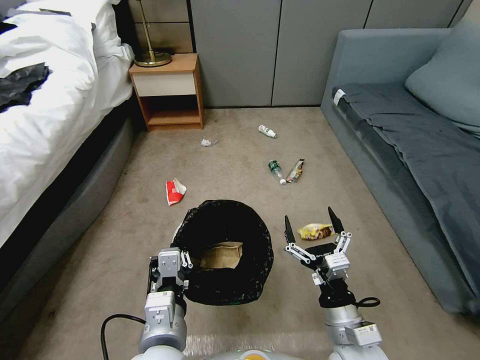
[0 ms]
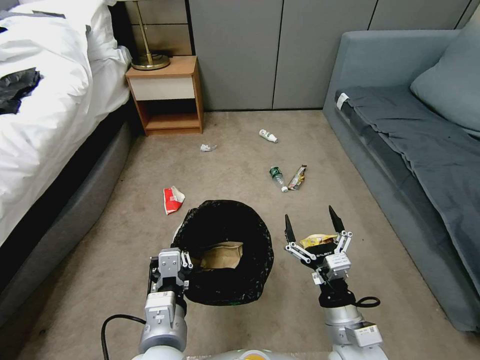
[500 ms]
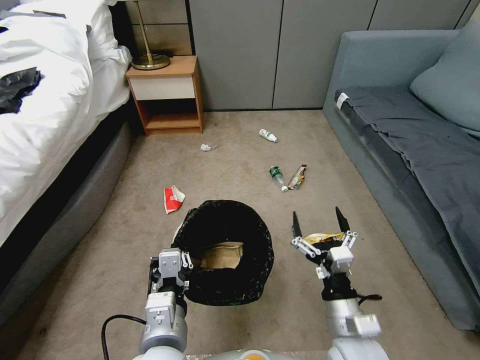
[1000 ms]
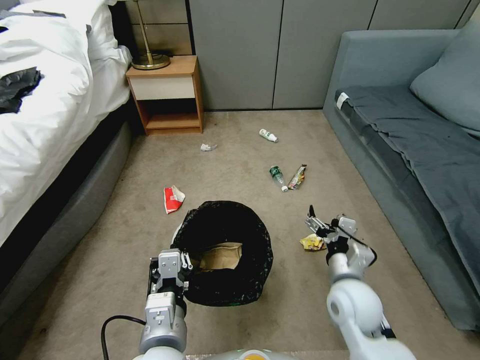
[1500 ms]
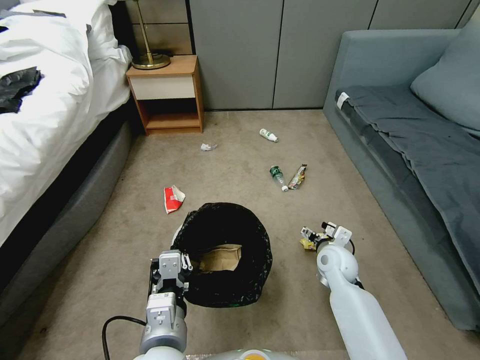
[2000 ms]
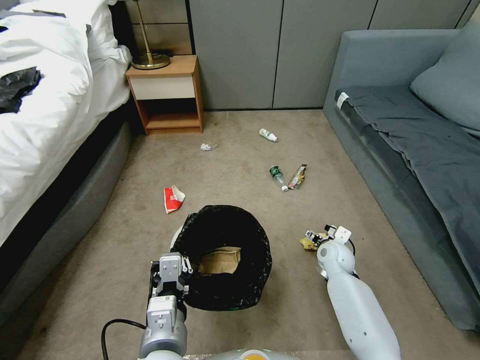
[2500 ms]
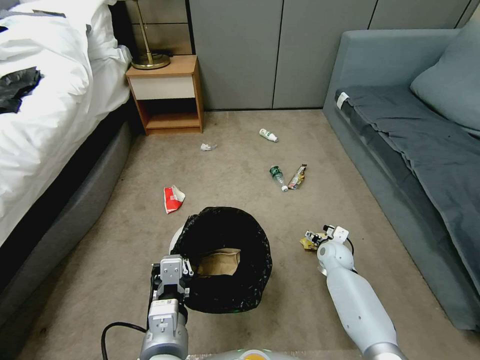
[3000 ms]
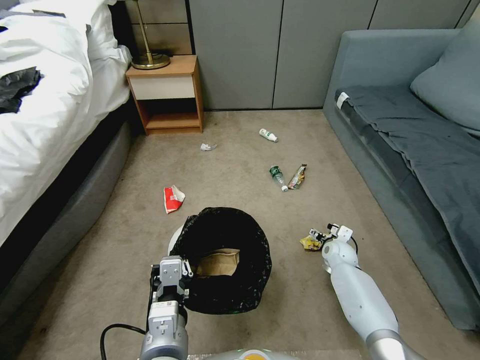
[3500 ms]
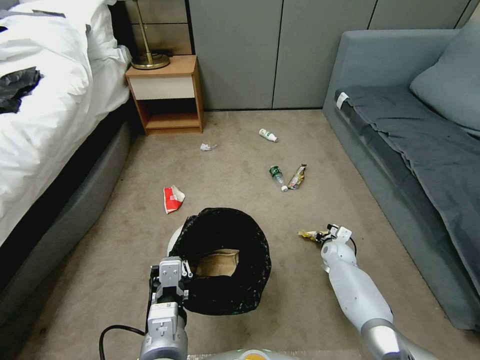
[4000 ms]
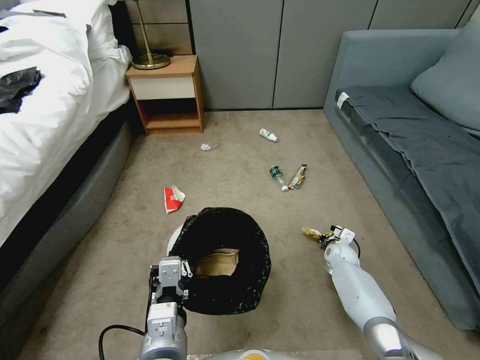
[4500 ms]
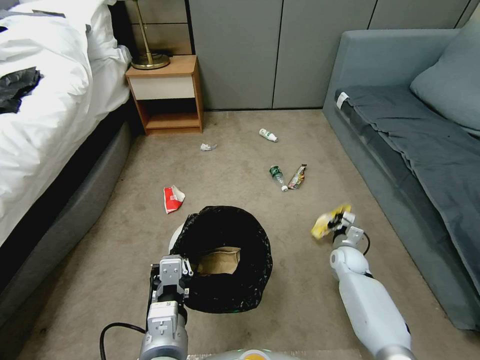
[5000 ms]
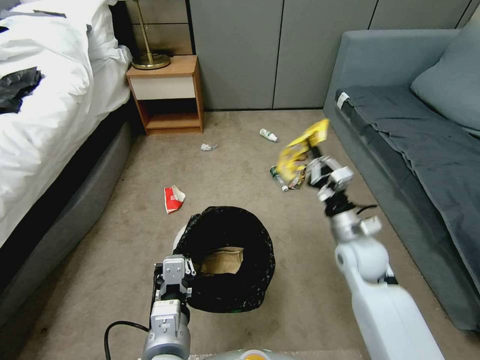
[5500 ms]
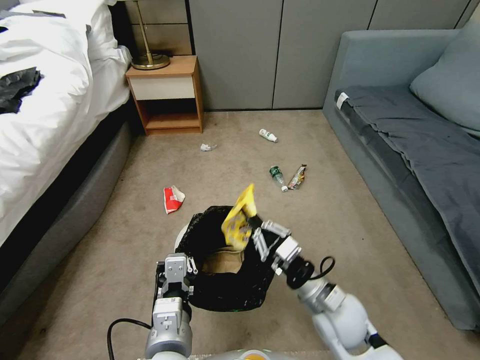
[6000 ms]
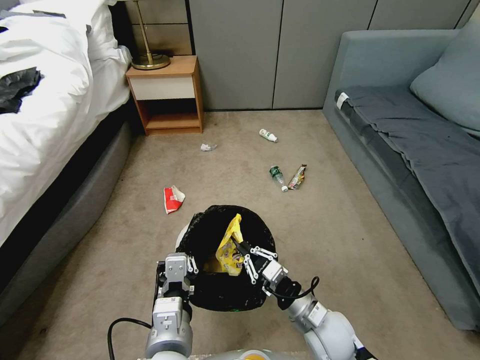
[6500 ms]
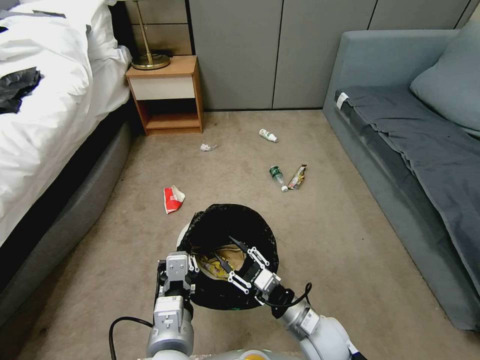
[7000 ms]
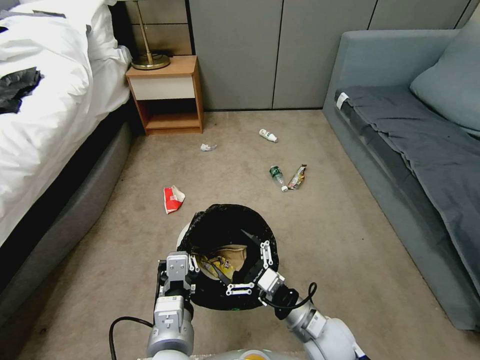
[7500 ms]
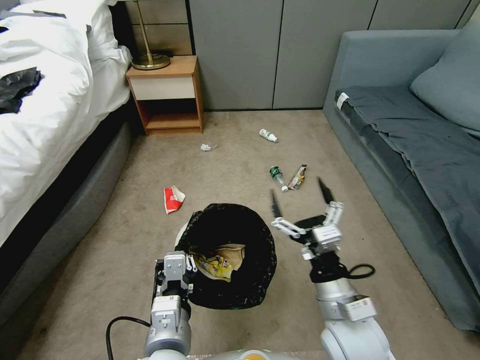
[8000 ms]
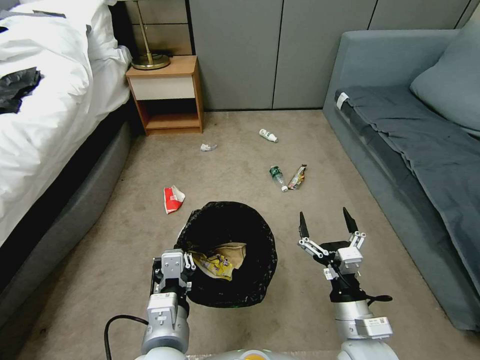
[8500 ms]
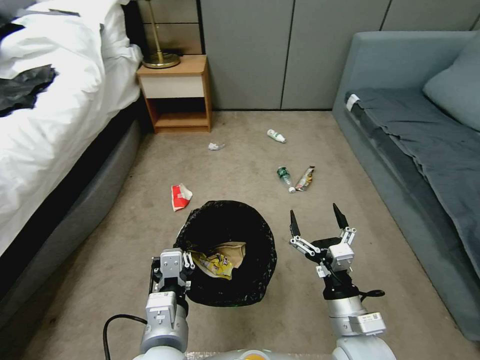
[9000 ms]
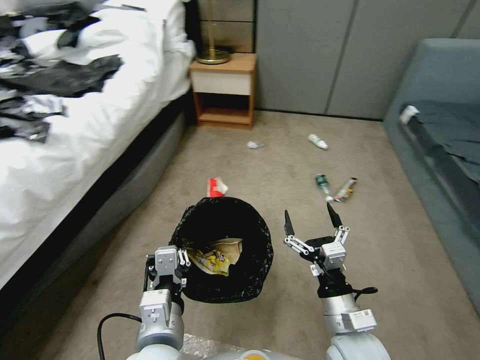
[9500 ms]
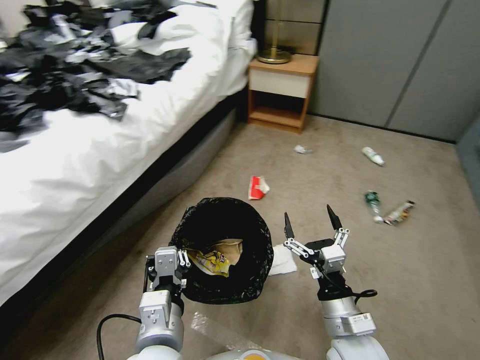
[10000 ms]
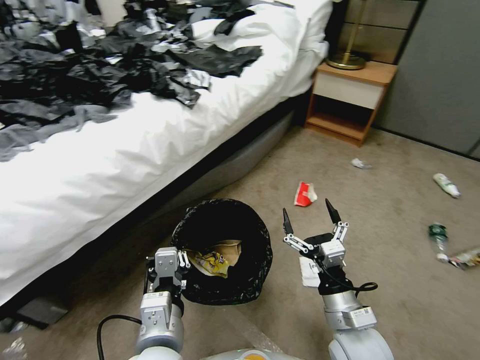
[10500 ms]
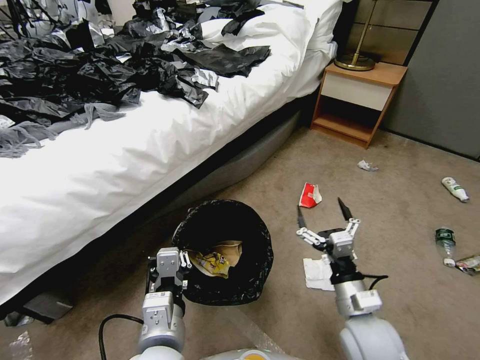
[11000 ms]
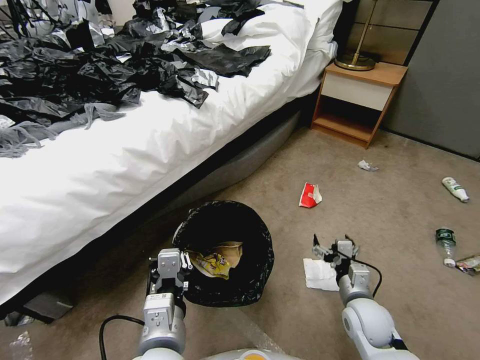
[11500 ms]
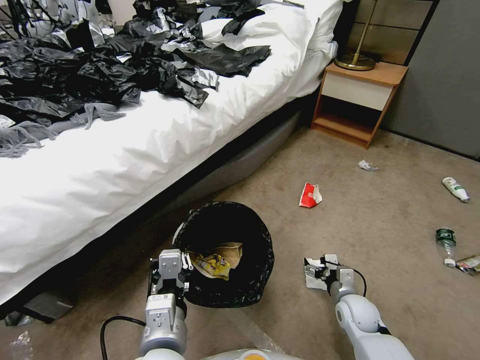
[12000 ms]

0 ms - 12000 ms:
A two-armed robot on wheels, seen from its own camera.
Task of the whole recording: Pick up the trash bin, then pick up the garbage from the floor and place it into the trash bin.
0 ms - 2000 ms: The right gripper shifts about 20 cm forward.
2000 ms - 4000 ms: The right gripper is displaced downward, forward and to the right by roughly 15 cm, and closes up.
4000 ms - 6000 ms: The right gripper heads backward, upward and to the left, covering roughly 30 cm, and closes up.
6000 ms - 8000 ms: The right gripper travels upward by approximately 5 cm, and opens its fingers.
8000 ms - 10000 ms: The right gripper travels downward by about 5 cm.
10000 ms - 12000 ms: The right gripper shifts about 20 cm downward, forward and to the right.

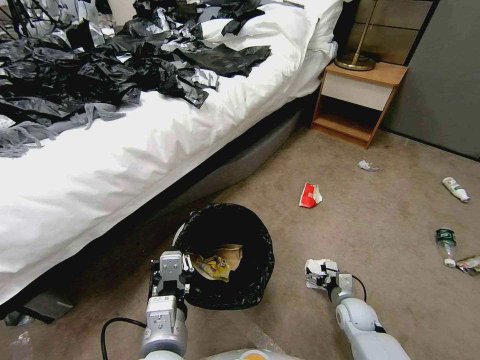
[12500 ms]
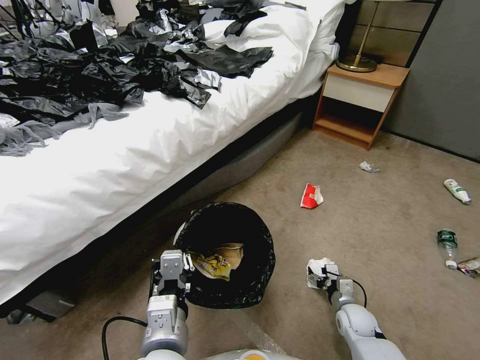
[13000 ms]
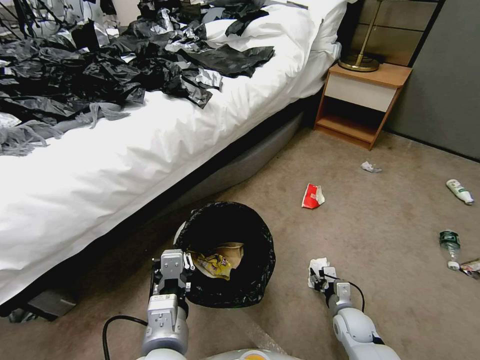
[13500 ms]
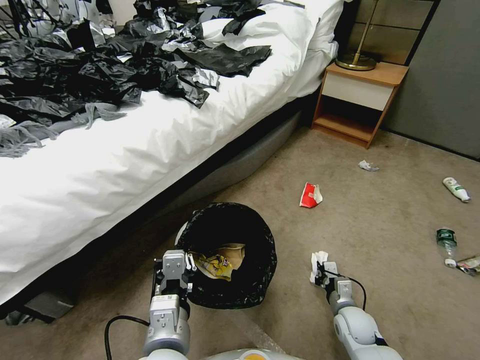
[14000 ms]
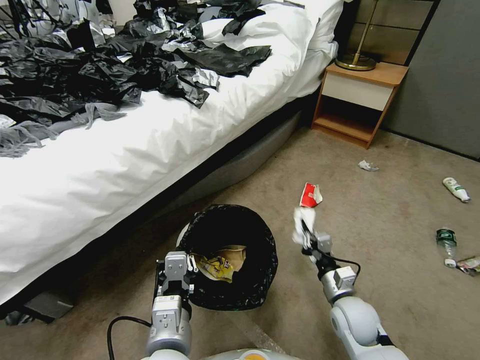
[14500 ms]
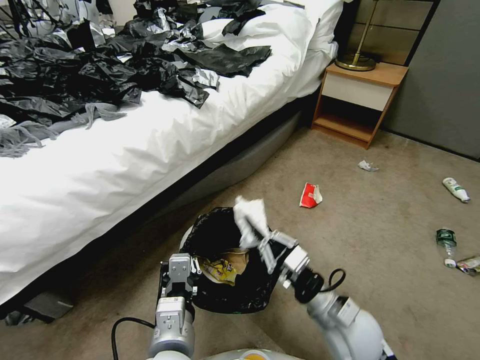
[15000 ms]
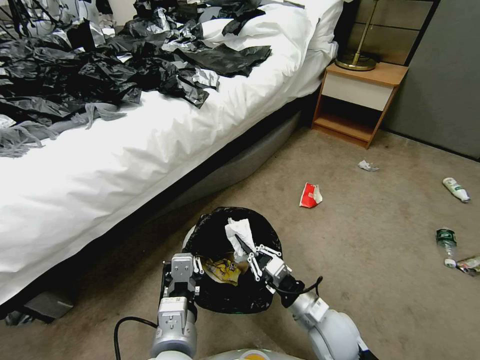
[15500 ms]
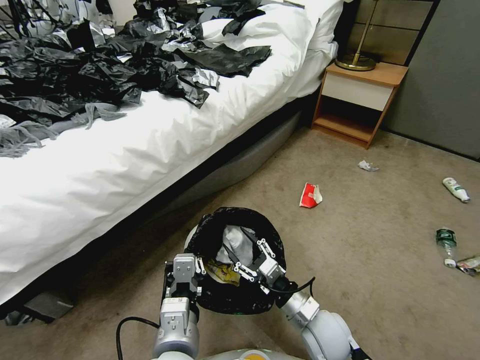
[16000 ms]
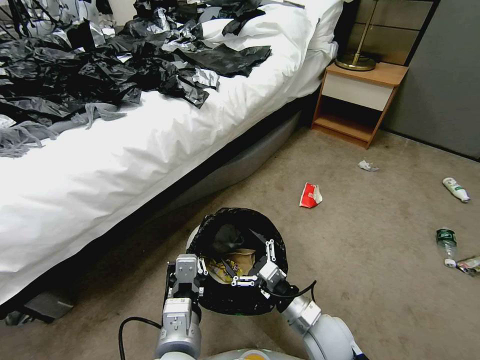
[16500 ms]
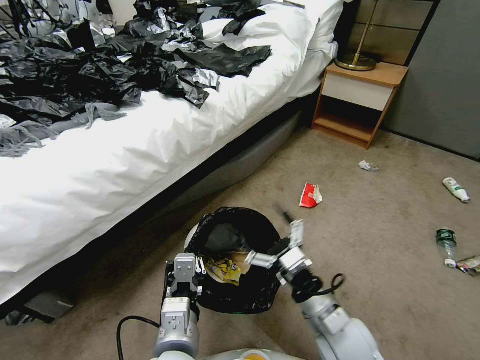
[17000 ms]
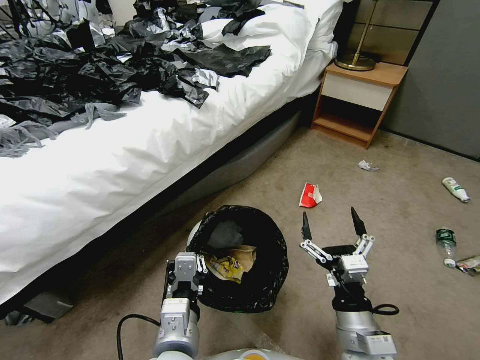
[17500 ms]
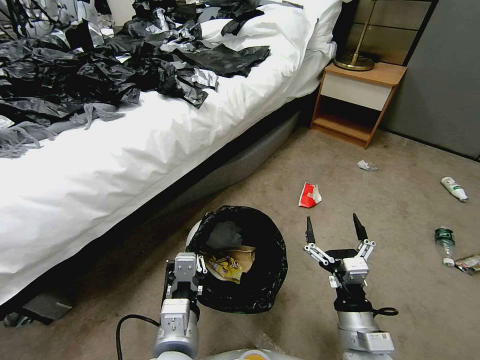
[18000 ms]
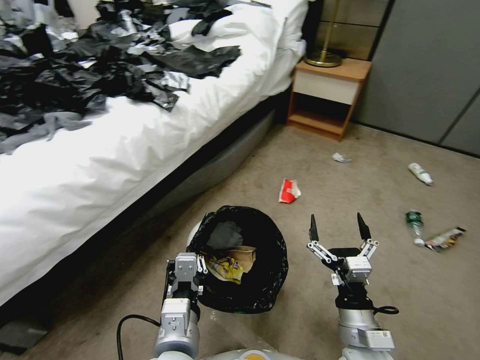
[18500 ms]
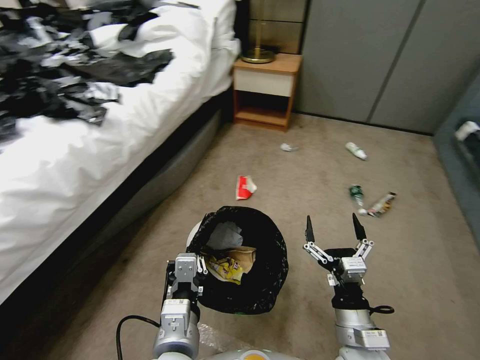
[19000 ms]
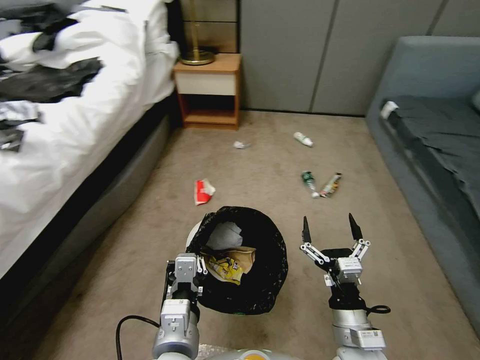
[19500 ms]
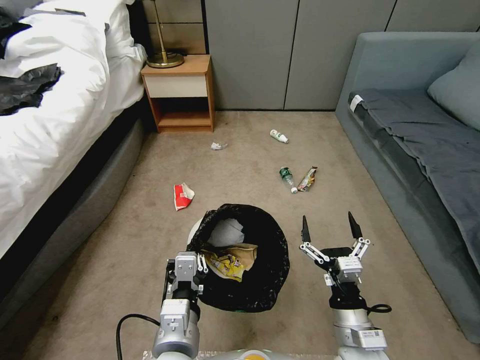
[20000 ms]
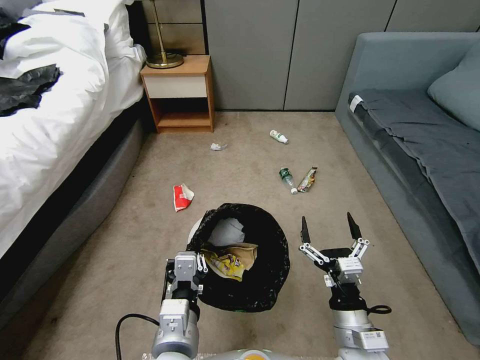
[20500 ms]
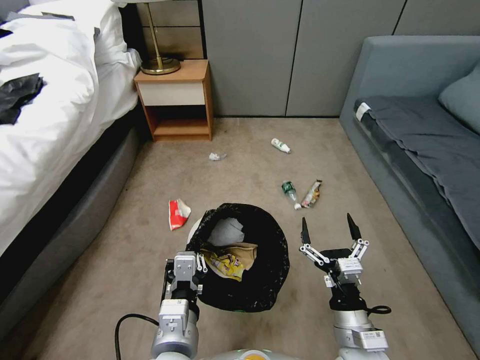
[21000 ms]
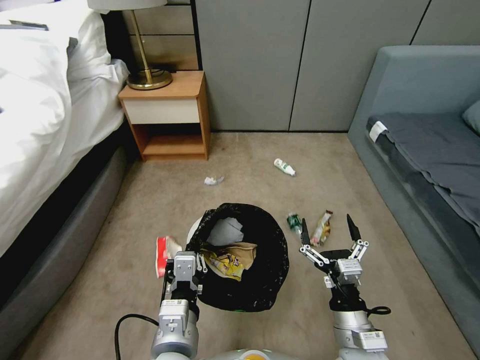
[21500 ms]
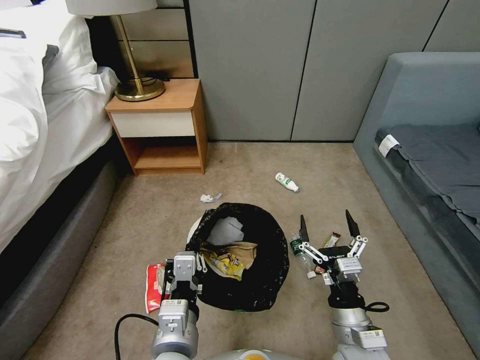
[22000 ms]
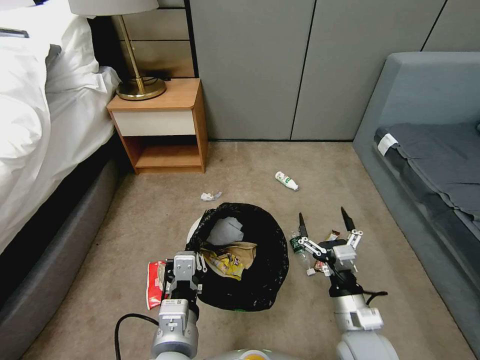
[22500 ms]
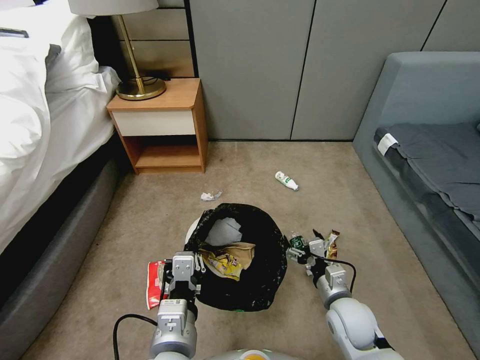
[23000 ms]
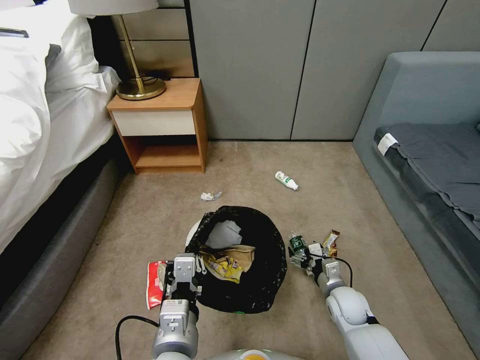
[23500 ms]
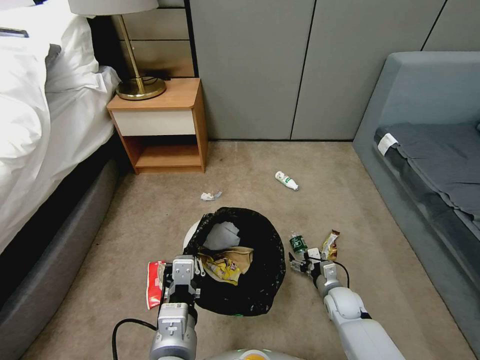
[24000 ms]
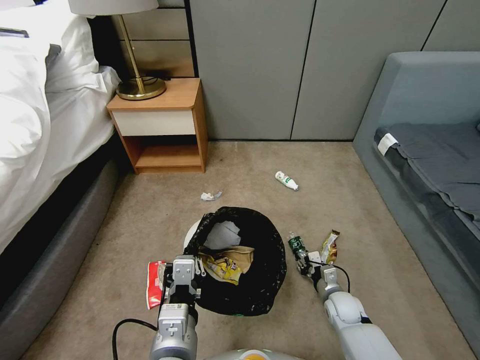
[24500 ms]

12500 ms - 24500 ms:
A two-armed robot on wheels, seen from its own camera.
Task of the whole recording: Pick up the trash bin, then pick up the garbage from the floor and place it into the trash bin.
12500 ms - 14500 ms: The right gripper travels upward and to the left by roughly 15 cm, and closes.
14500 ms - 16500 ms: The right gripper is displaced to the left by some 10 cm, reaches approximately 10 cm upward, then returns, and opens its fingers.
16500 ms - 18500 ms: The right gripper heads upward and backward, covering about 10 cm.
22500 ms - 24500 ms: The right gripper shifts about 20 cm downward and forward, and closes its fingers.

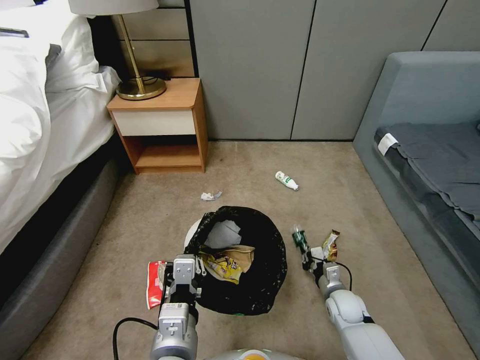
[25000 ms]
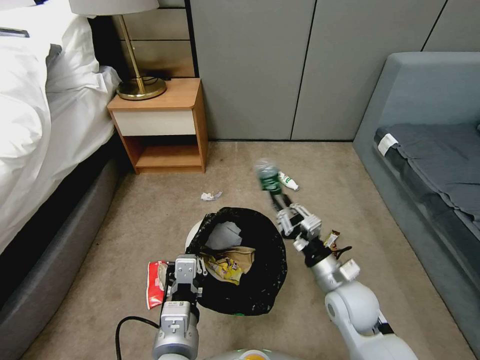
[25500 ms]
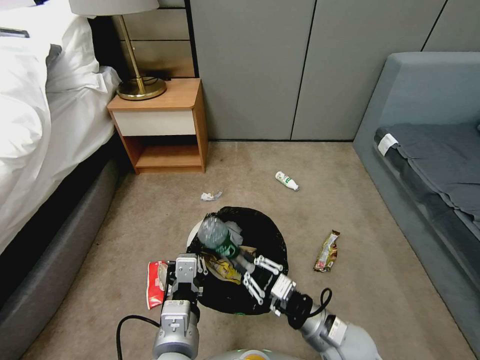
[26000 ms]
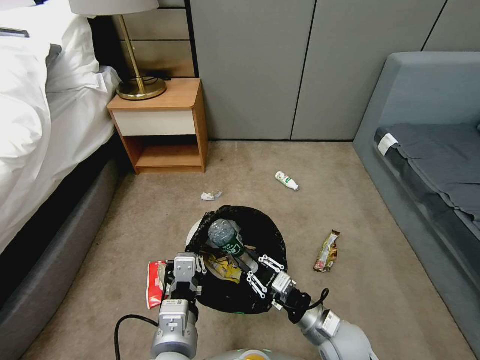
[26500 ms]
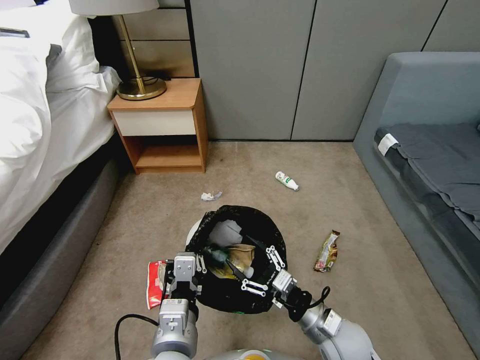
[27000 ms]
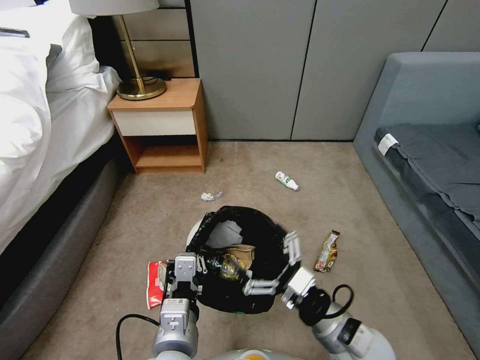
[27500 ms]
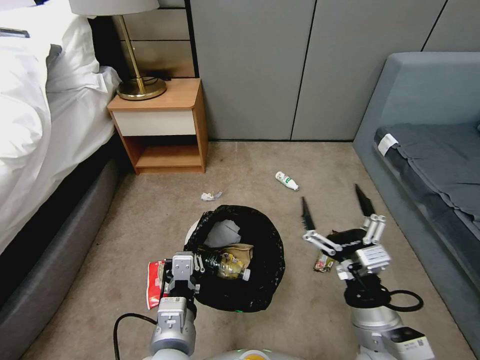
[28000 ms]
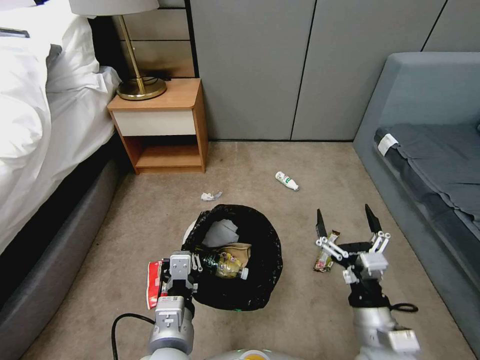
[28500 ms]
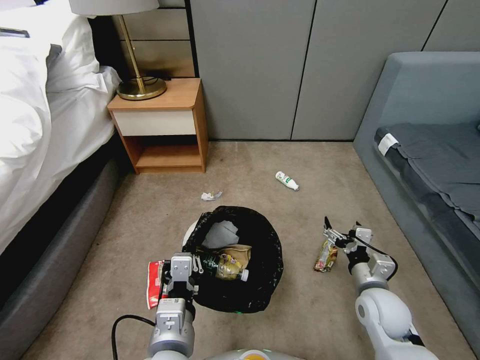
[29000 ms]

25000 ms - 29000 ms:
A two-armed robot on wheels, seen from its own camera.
Task of the whole recording: Pick up the trash bin, then pick up the garbage from the floor and place it into the trash bin.
25000 ms - 27000 ms: The right gripper heads upward, backward and to the left, covering some 20 cm, and opens up.
27000 ms - 29000 ms: The right gripper travels to the right and forward by approximately 10 cm, and travels upward and back again, about 15 cm each way.
